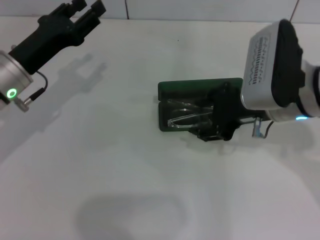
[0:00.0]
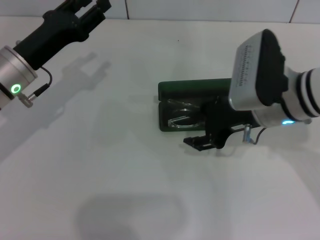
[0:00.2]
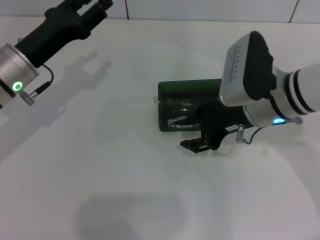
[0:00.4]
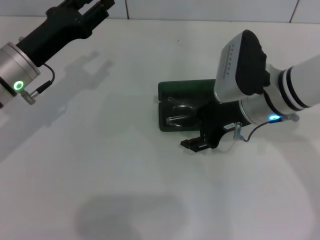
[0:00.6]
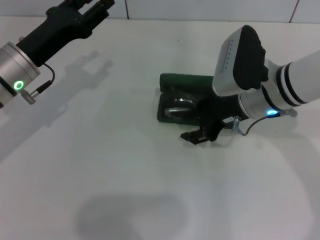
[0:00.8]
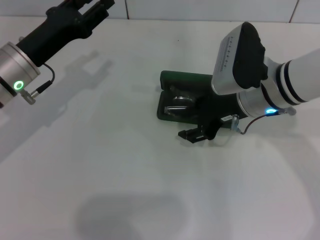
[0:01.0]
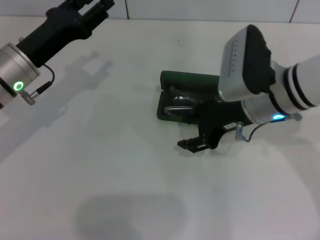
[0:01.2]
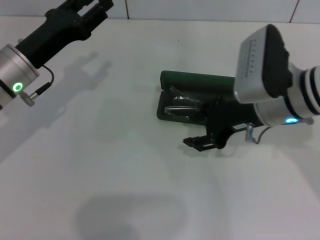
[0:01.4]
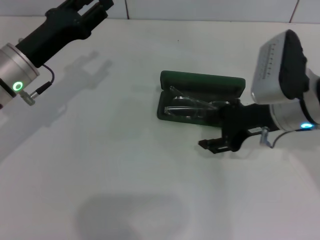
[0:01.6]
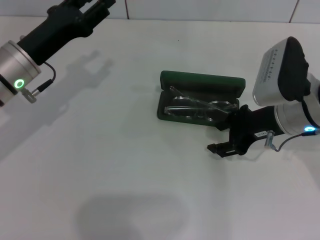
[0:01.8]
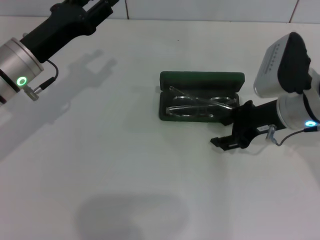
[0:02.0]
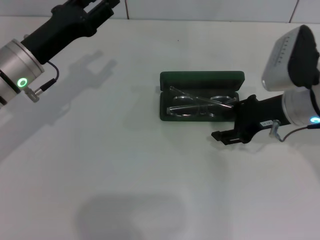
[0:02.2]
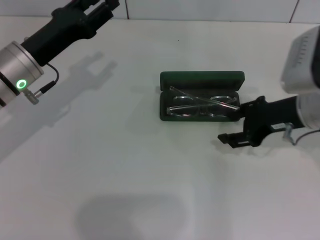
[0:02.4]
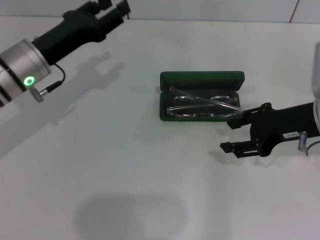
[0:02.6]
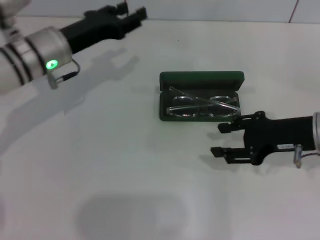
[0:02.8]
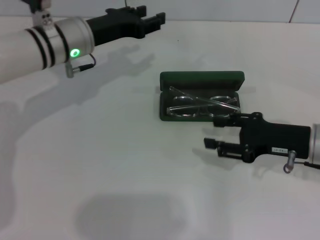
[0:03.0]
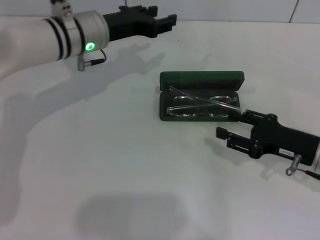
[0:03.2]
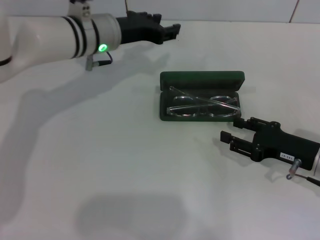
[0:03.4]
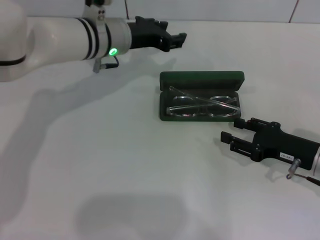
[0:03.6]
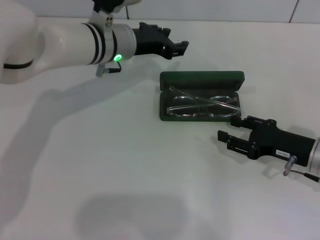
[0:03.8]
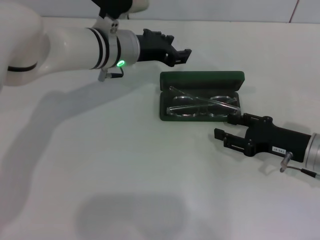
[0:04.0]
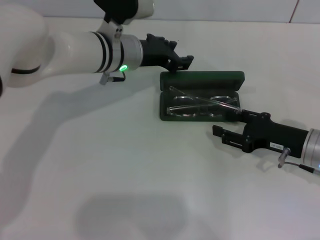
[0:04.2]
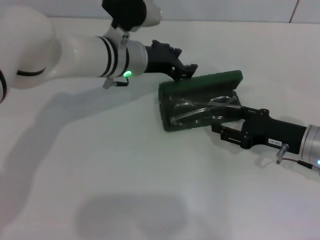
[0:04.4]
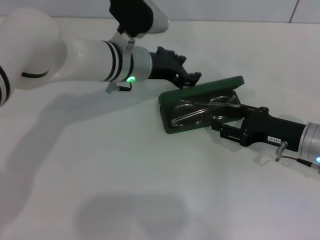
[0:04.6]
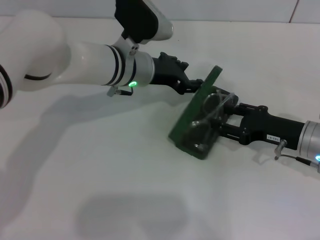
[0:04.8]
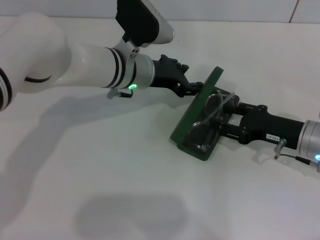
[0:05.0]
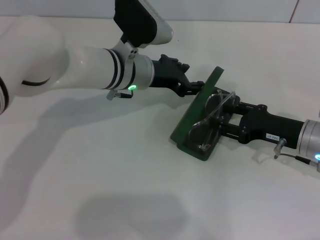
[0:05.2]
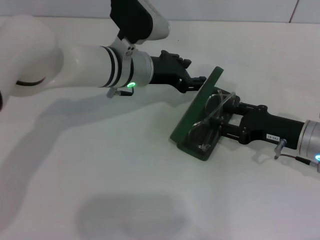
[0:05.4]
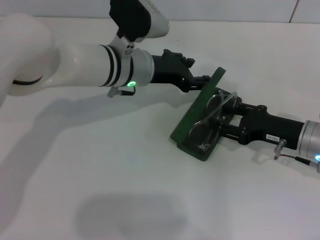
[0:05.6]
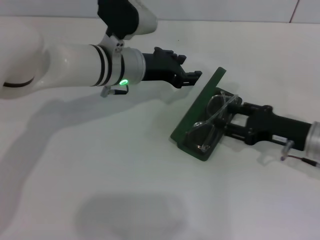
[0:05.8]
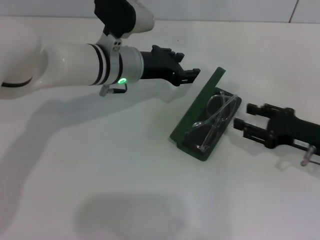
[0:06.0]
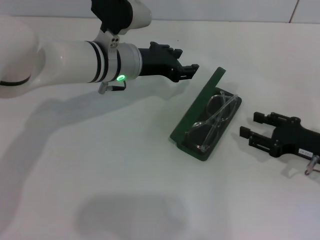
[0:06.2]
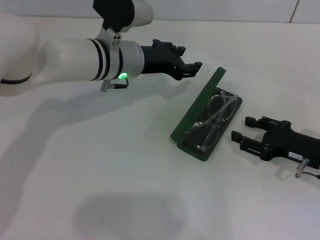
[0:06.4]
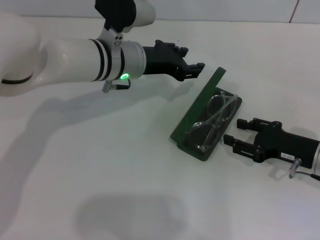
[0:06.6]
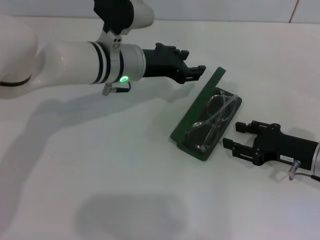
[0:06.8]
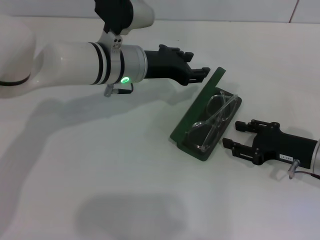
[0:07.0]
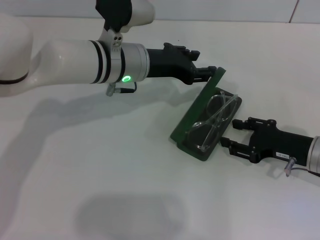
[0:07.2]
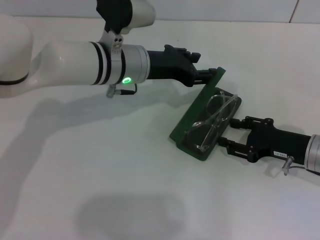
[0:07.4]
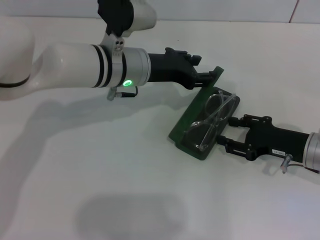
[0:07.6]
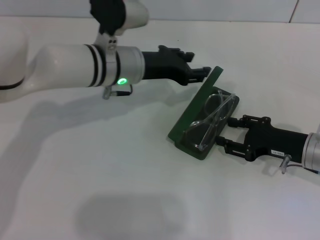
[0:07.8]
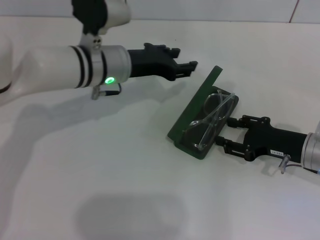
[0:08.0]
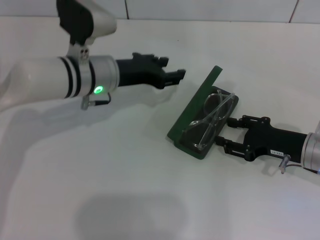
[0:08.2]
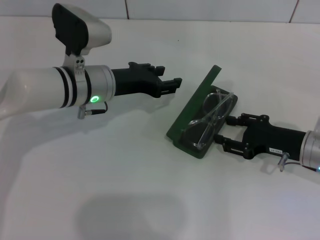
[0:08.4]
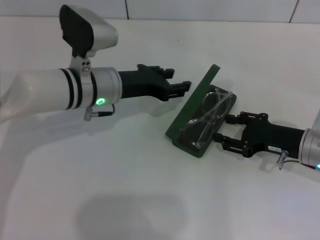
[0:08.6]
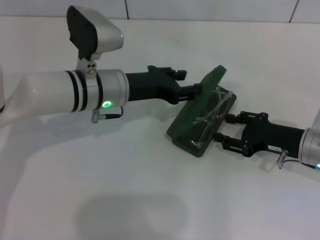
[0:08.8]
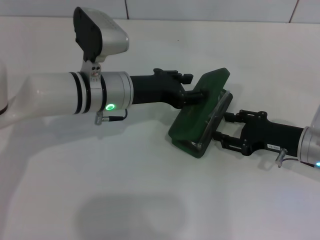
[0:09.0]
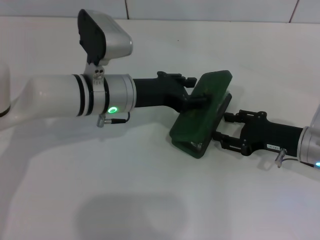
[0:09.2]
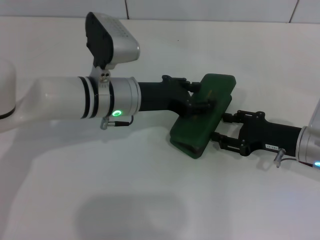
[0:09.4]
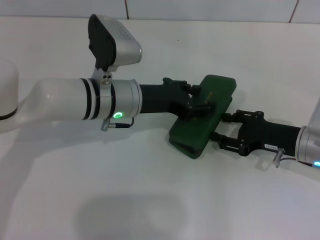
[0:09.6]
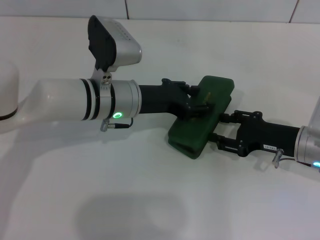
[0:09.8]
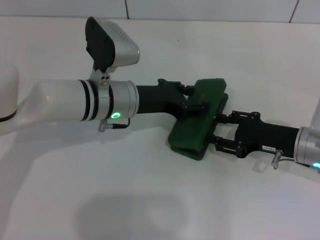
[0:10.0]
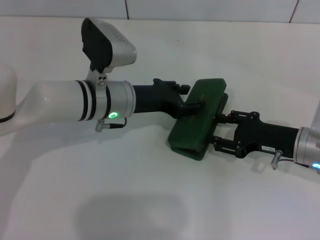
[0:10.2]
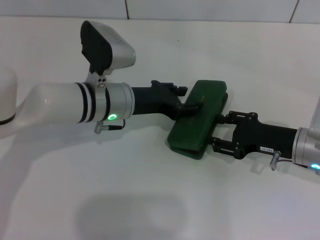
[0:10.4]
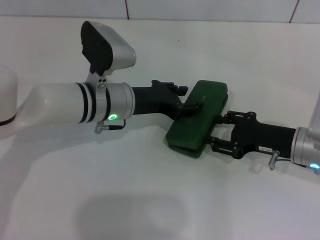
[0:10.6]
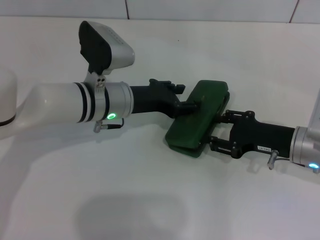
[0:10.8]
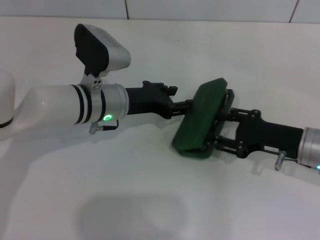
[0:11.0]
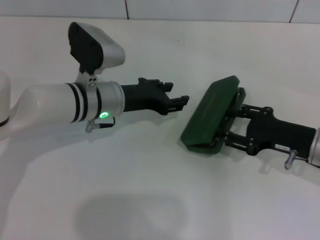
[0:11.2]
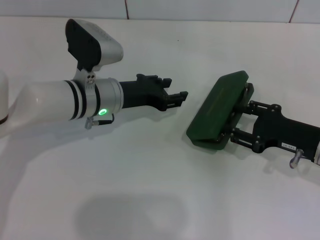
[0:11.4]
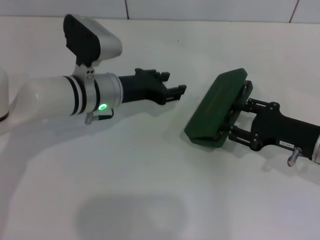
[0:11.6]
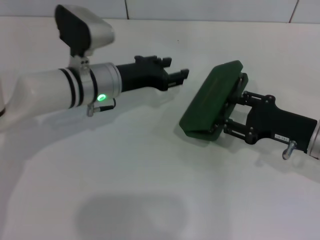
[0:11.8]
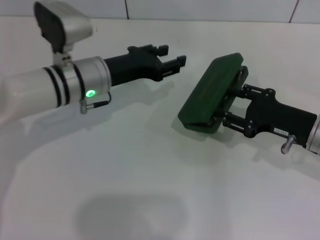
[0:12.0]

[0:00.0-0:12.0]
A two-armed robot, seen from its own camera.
Step, 0:00.0 to 0:03.0: Put the glasses into the case with your right hand.
0:01.6 to 0:03.0: The right gripper moves to the right and downward, approximately 10 cm, while the left gripper heads to the right and forward, covering some 10 cm.
0:03.0 to 0:04.4: The left gripper goes approximately 10 cm to the right.
0:04.4 to 0:07.6: There are only small adjustments of the grippers.
0:07.6 to 0:10.4: There are only small adjustments of the grippers.

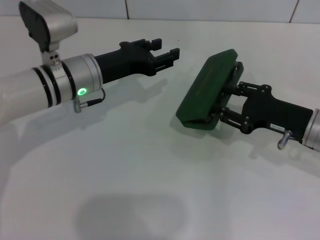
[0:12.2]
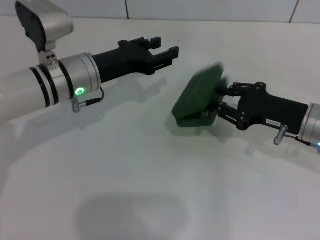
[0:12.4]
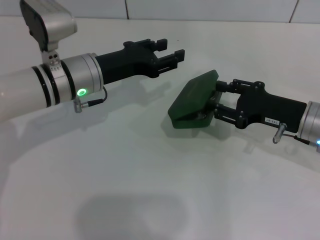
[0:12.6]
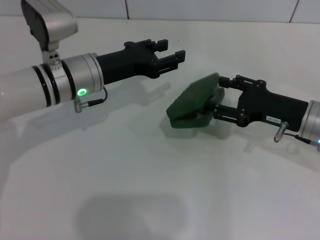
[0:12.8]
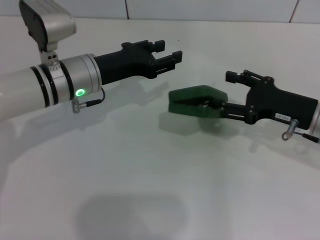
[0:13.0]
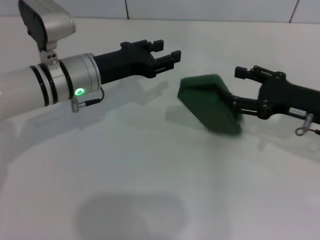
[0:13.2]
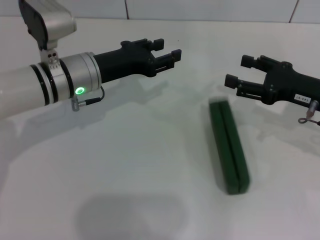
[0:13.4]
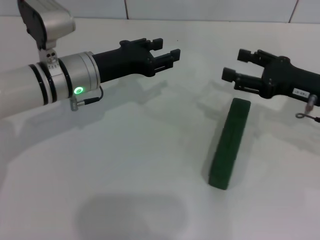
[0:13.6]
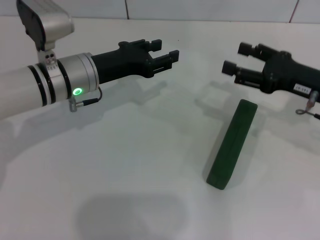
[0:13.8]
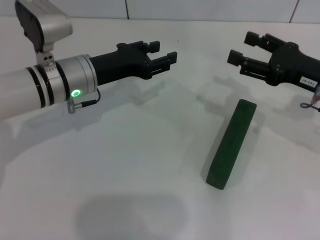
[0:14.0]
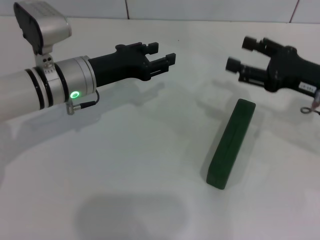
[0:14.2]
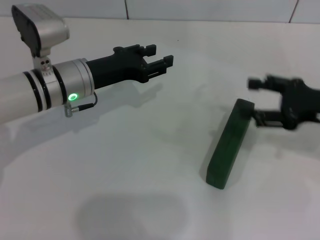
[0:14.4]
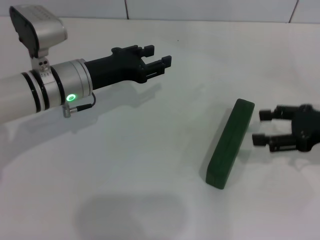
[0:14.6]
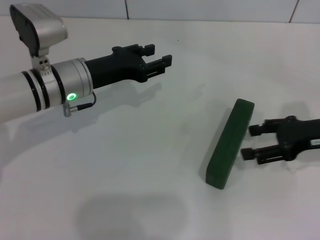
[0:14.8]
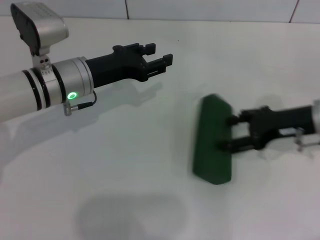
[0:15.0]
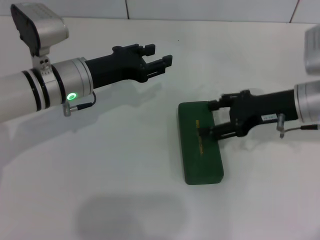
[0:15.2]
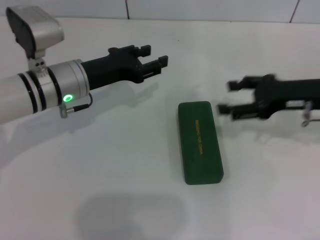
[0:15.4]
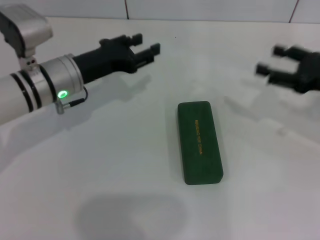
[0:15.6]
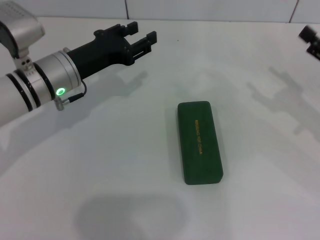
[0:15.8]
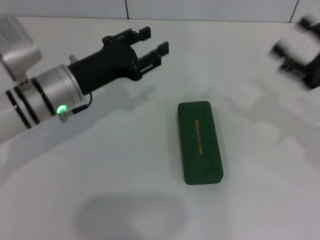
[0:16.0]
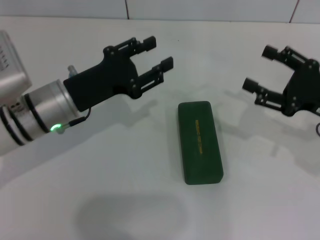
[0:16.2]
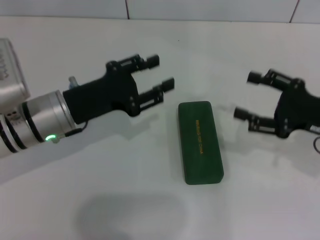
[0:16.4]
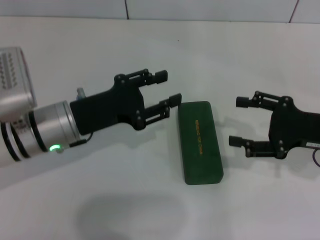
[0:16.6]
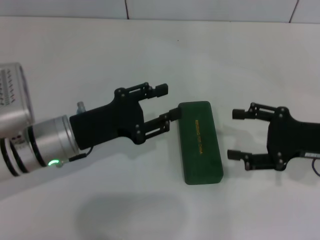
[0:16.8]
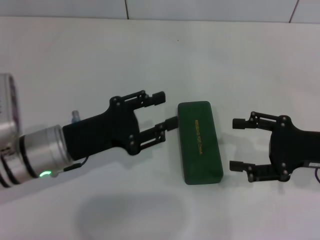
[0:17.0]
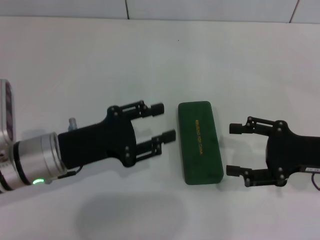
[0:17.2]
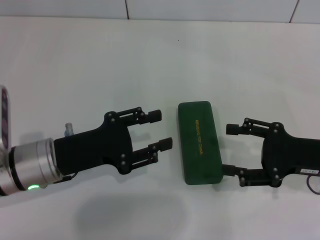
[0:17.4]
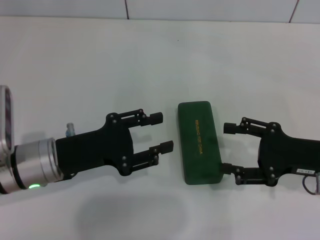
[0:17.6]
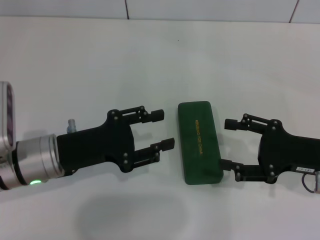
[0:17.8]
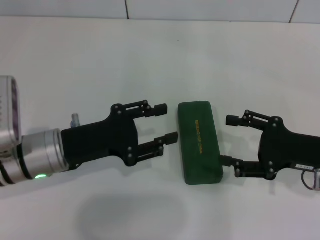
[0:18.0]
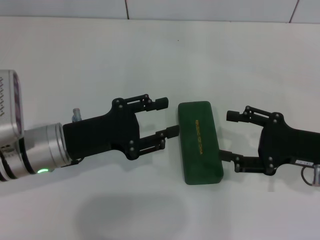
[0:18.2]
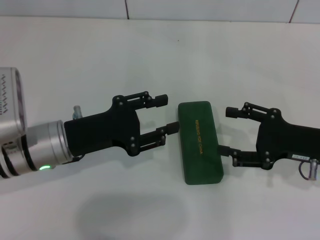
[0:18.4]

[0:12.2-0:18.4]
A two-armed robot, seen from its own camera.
Step, 0:12.2 to 0:14.2: Close the glasses case with your left hand.
0:12.2 to 0:13.8: The right gripper changes place by roughly 5 cm.
0:13.8 to 0:15.4: The right gripper swings left and right, about 10 cm each way, with 2 reversals.
0:15.4 to 0:16.8: The two grippers go some 5 cm backward.
0:16.8 to 0:18.4: The grippers move only a little.

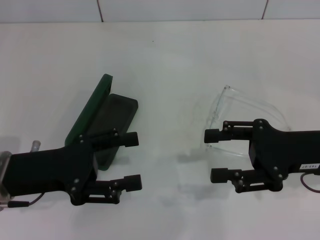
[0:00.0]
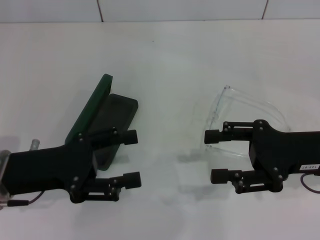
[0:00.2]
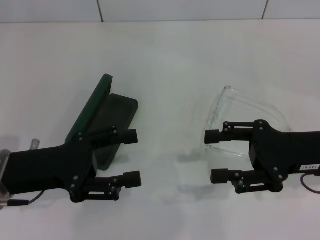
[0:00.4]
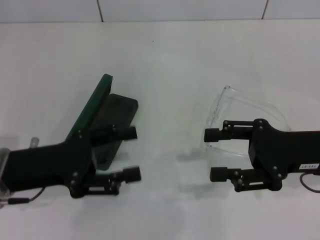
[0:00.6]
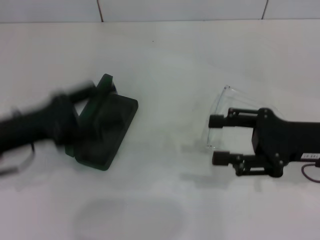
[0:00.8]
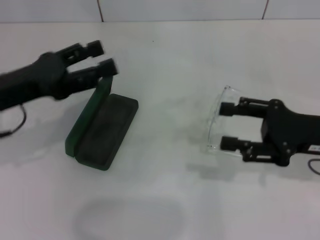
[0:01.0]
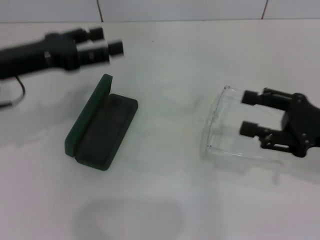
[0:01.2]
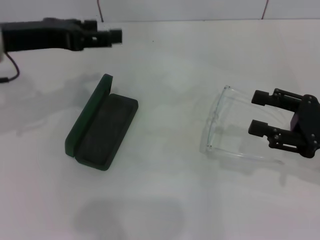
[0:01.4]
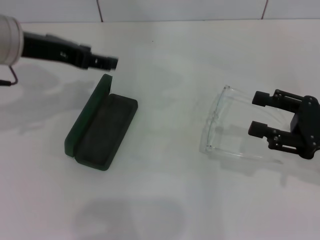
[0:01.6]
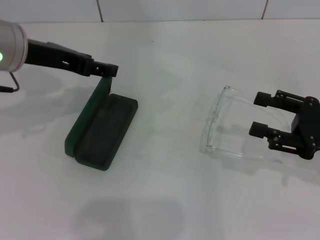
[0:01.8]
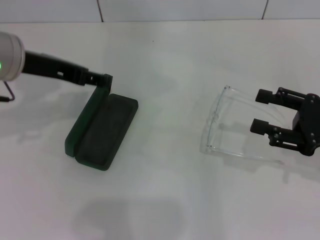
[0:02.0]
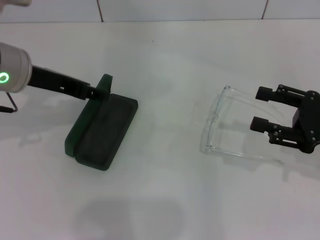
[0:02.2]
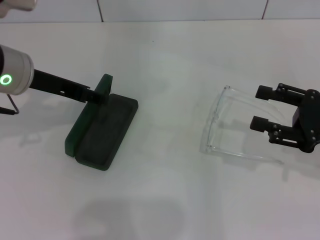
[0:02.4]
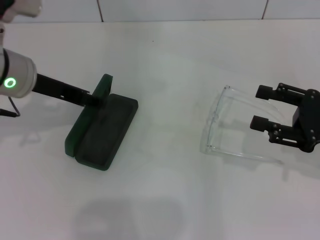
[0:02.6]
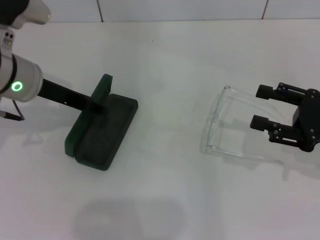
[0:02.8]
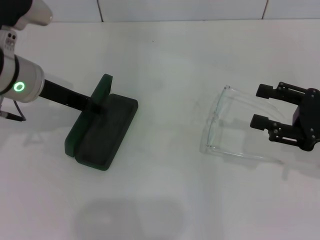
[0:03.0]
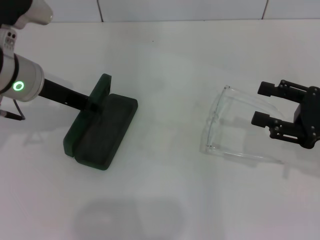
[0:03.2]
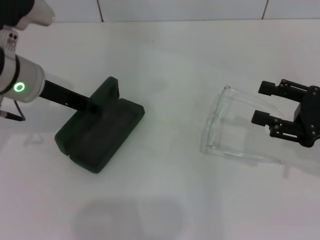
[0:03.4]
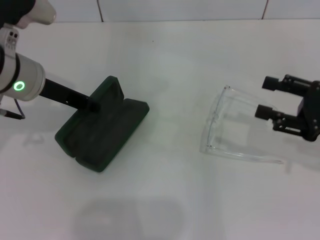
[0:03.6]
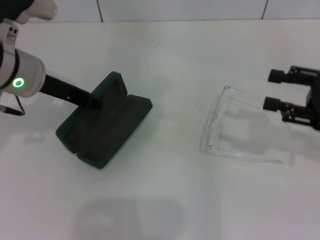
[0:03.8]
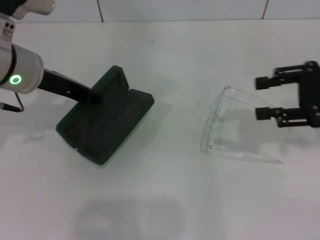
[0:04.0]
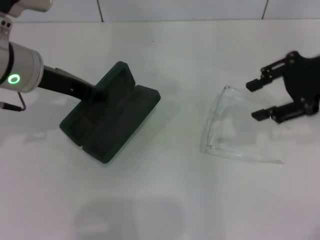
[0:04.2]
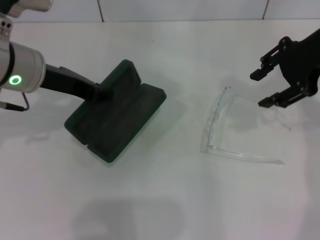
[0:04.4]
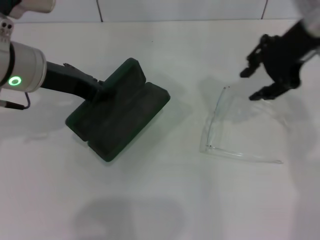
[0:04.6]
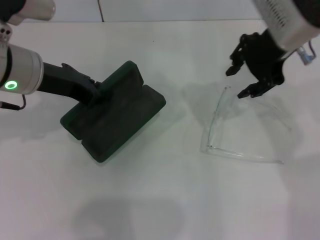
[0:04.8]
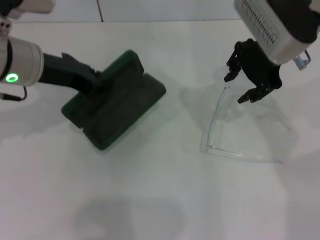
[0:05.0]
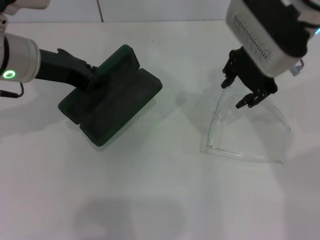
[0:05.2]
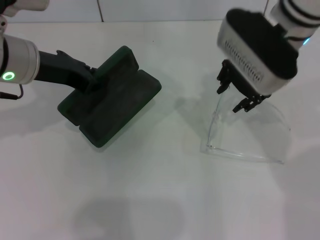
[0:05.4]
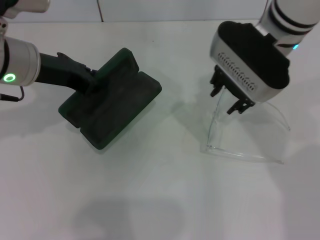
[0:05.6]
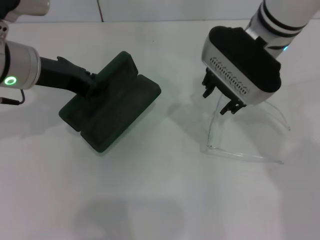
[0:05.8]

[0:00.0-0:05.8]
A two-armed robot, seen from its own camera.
Step, 0:00.0 to 0:03.2: Grab the glasses case with your left hand.
0:00.0 to 0:01.4: The left gripper is displaced upward and forward by about 15 cm; the right gripper moves to the right, roughly 5 cm.
0:01.4 to 0:02.8: The left gripper is displaced downward by some 5 cm.
0:02.8 to 0:04.4: The left gripper closes; the right gripper moves upward, forward and to the left, about 20 cm.
0:04.4 to 0:05.8: The right gripper travels to the left and downward by roughly 15 cm.
